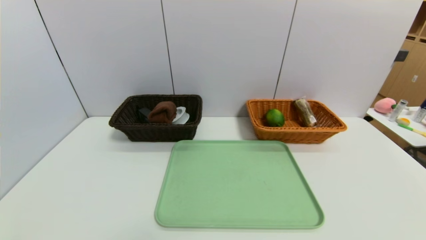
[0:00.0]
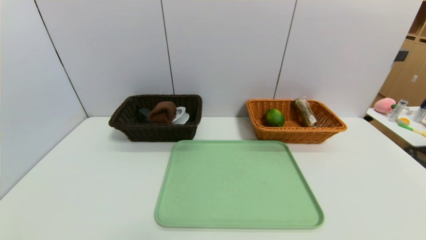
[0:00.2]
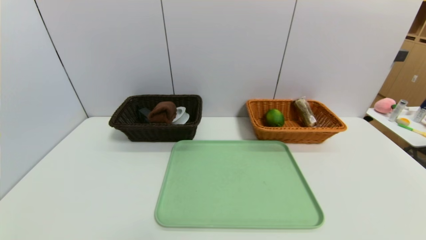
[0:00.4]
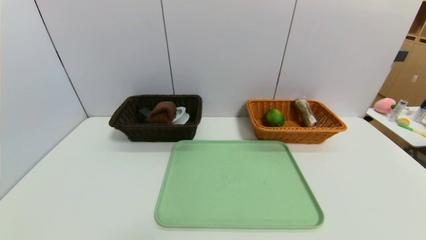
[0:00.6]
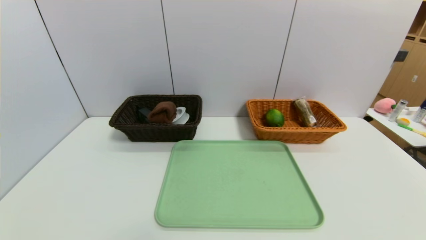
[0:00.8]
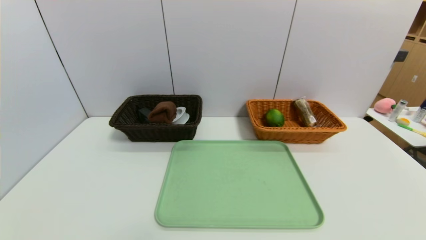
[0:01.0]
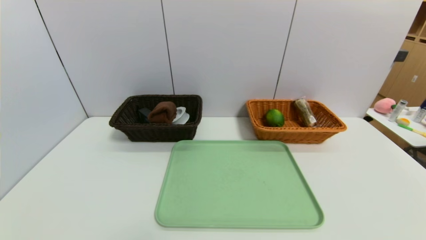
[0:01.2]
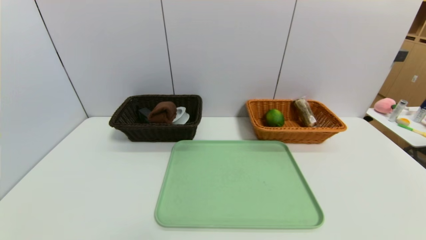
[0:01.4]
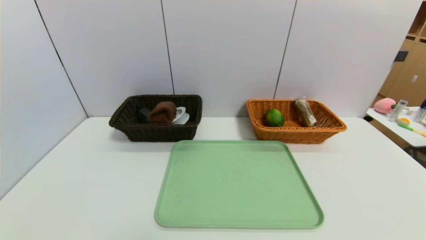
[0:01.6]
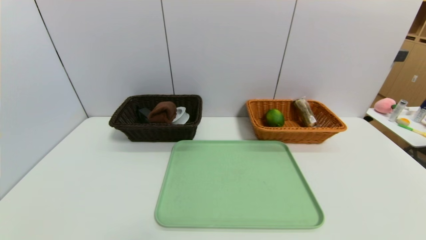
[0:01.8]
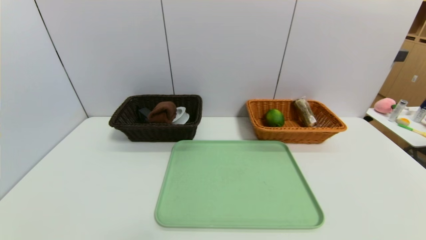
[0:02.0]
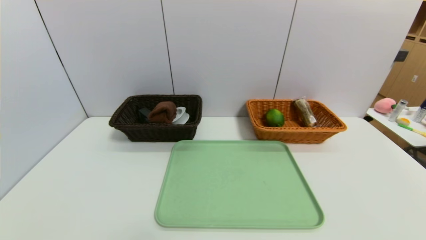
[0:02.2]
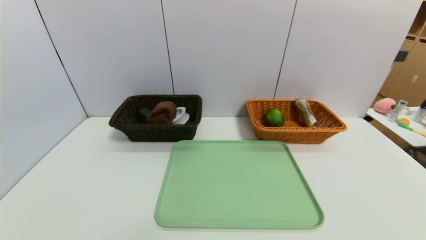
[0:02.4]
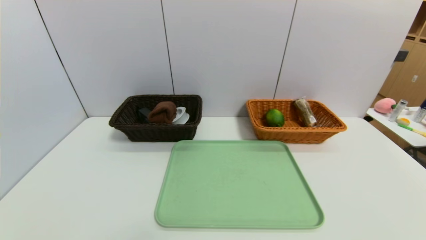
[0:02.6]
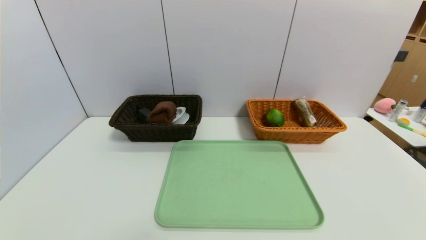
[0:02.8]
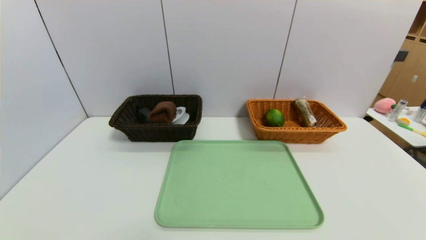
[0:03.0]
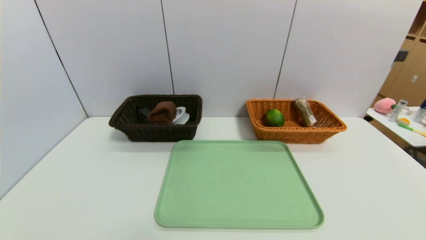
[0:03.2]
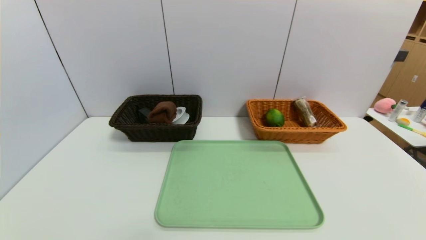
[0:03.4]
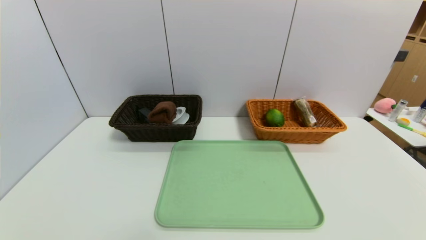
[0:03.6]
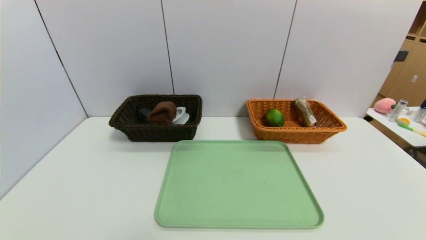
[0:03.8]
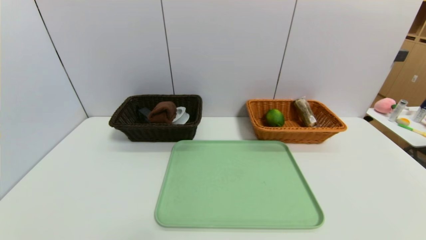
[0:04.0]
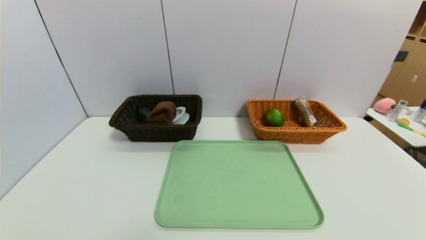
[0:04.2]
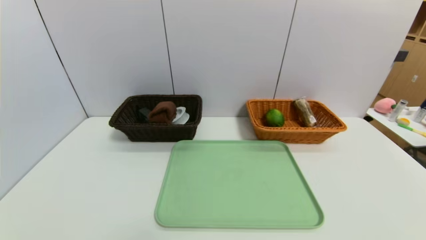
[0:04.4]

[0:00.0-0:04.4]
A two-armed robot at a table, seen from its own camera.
Task of the whole recording: place the food in the right basket with the right gripper, and place the non food items in the left basket with the left gripper.
0:03.0 to 0:04.4: Neither gripper changes place.

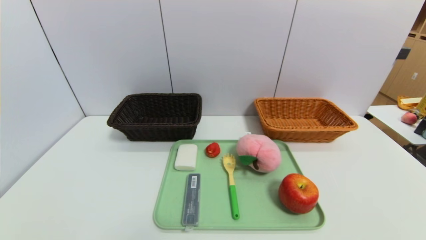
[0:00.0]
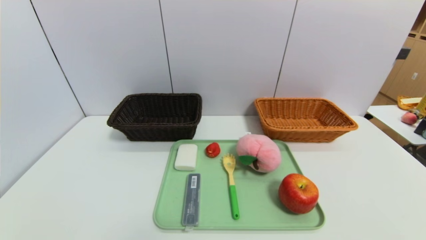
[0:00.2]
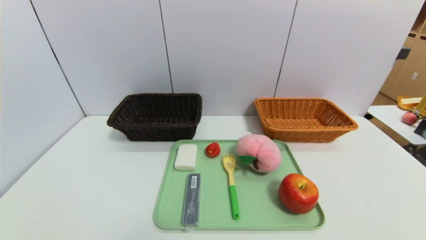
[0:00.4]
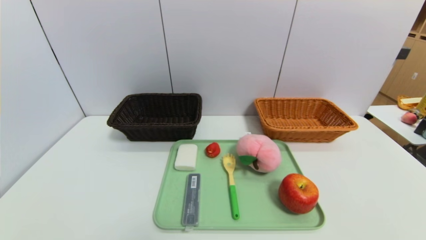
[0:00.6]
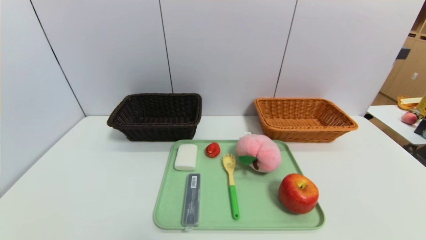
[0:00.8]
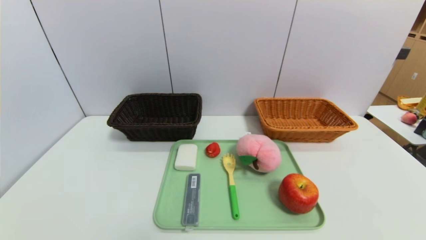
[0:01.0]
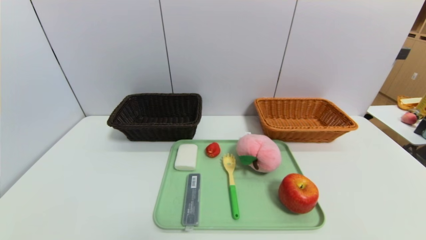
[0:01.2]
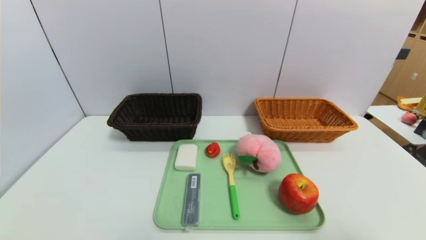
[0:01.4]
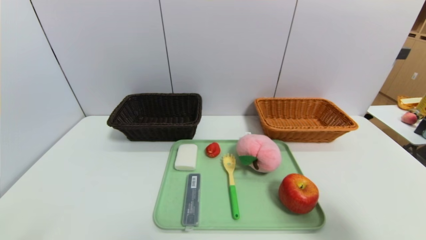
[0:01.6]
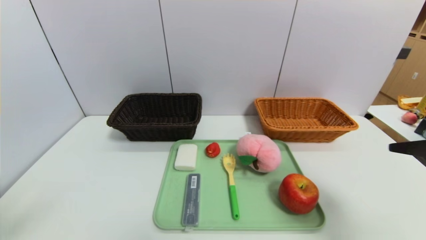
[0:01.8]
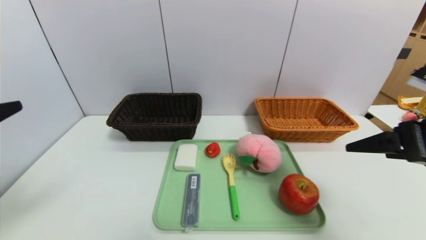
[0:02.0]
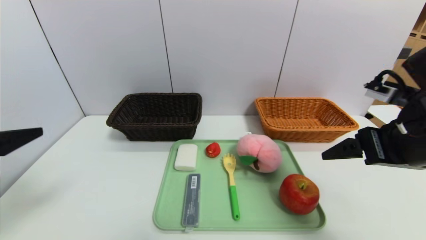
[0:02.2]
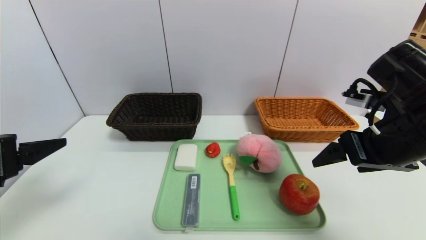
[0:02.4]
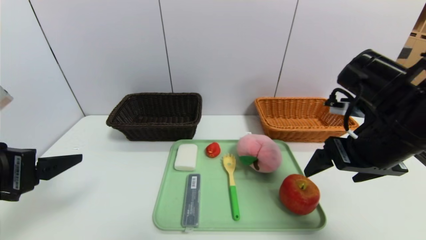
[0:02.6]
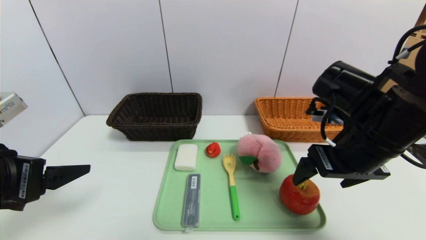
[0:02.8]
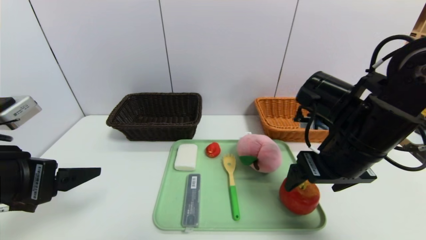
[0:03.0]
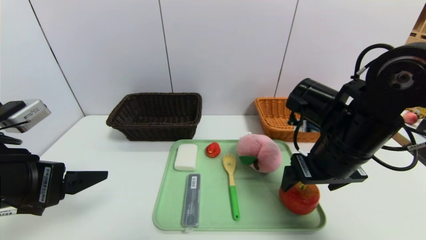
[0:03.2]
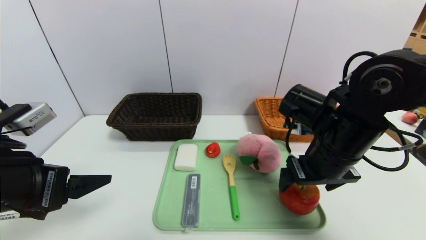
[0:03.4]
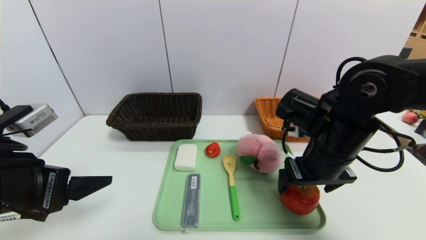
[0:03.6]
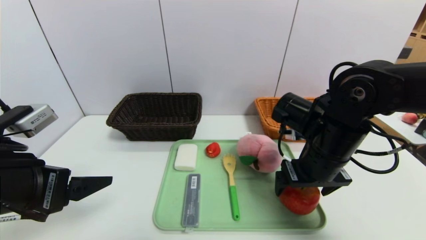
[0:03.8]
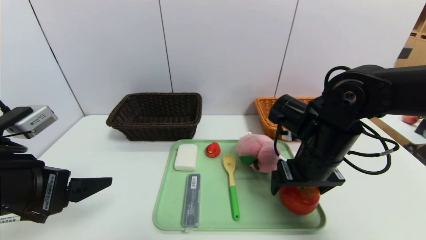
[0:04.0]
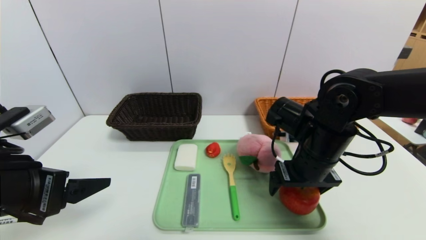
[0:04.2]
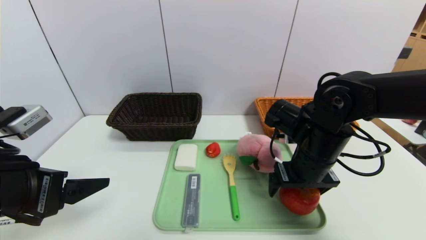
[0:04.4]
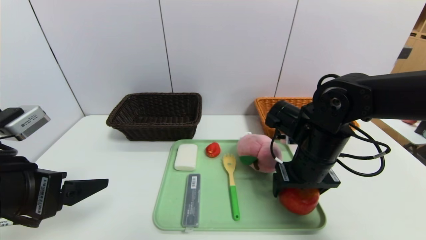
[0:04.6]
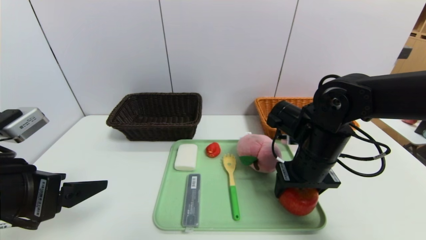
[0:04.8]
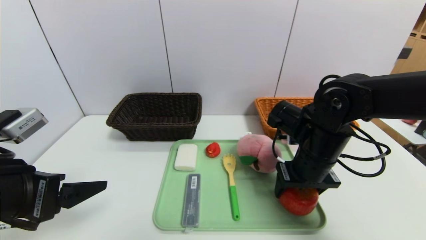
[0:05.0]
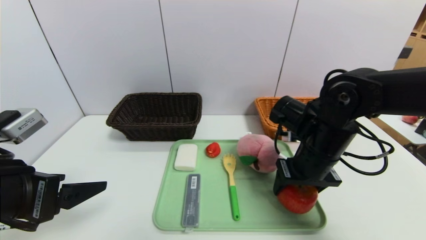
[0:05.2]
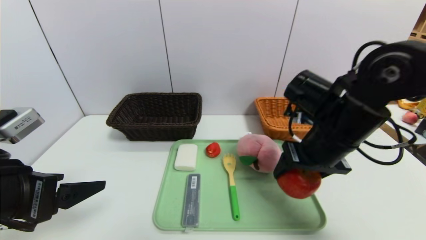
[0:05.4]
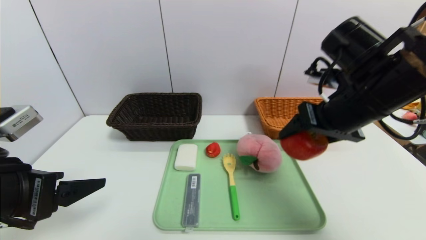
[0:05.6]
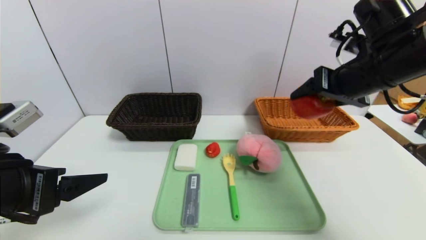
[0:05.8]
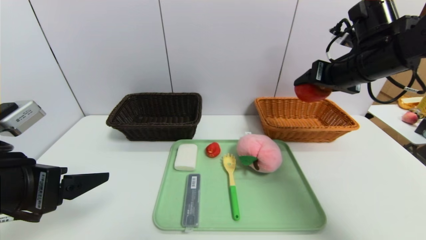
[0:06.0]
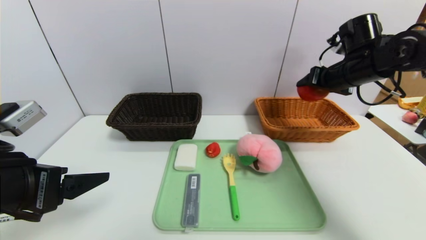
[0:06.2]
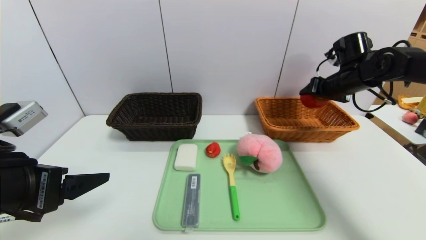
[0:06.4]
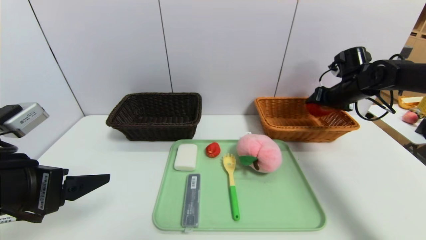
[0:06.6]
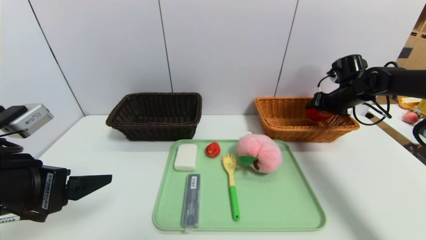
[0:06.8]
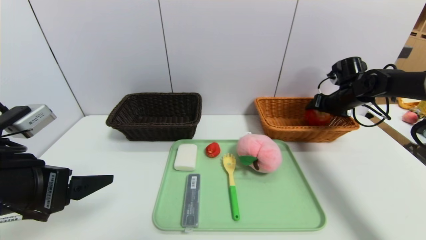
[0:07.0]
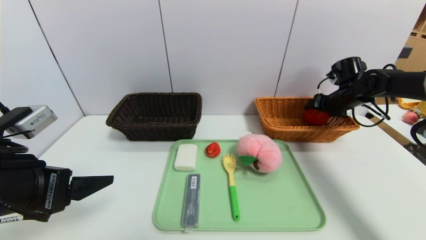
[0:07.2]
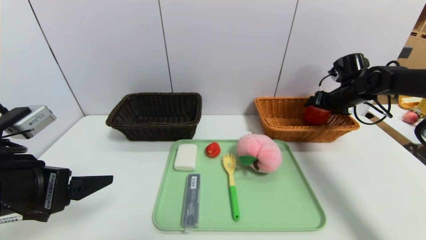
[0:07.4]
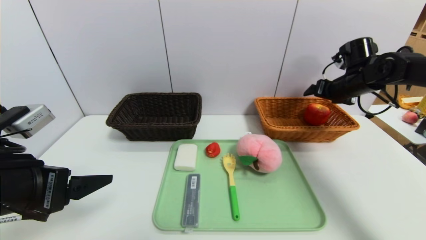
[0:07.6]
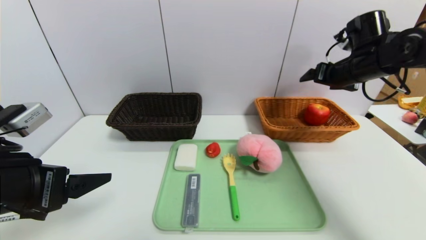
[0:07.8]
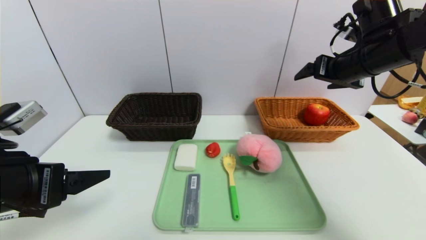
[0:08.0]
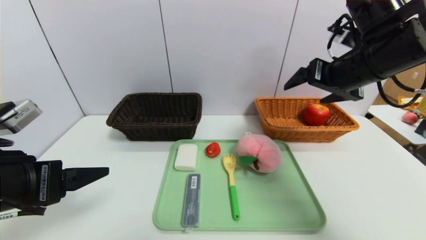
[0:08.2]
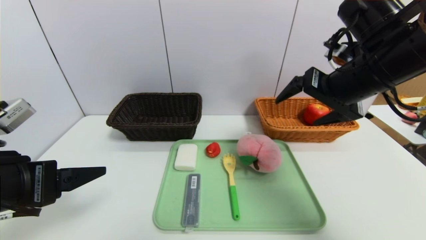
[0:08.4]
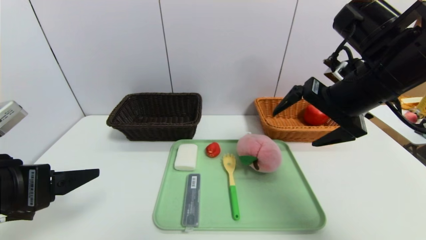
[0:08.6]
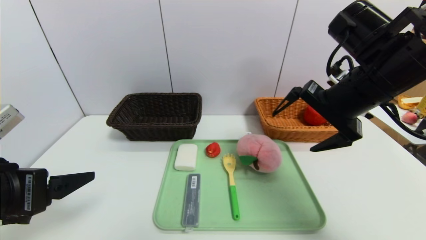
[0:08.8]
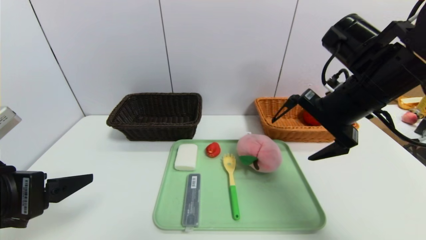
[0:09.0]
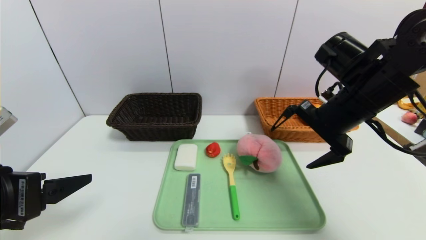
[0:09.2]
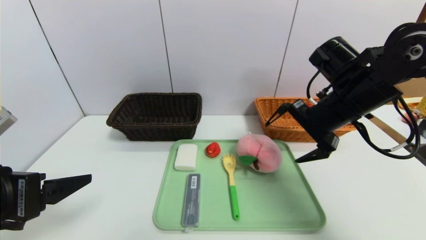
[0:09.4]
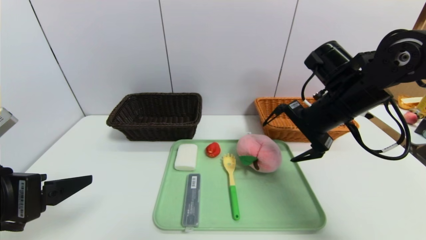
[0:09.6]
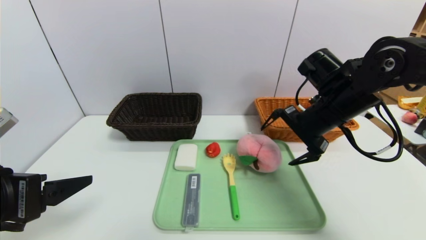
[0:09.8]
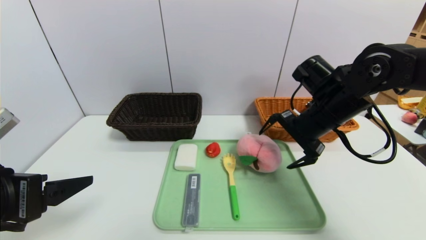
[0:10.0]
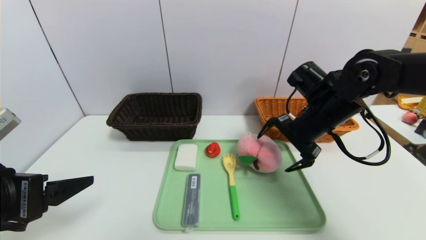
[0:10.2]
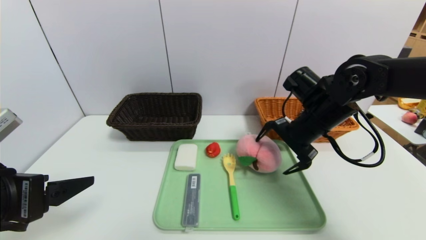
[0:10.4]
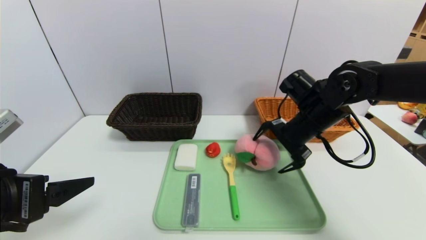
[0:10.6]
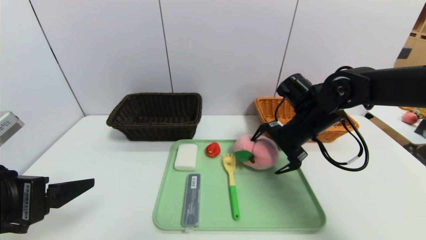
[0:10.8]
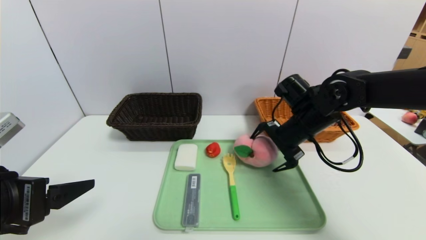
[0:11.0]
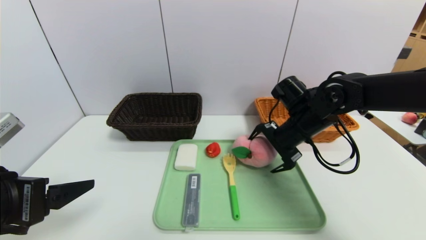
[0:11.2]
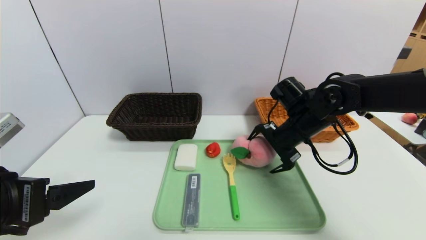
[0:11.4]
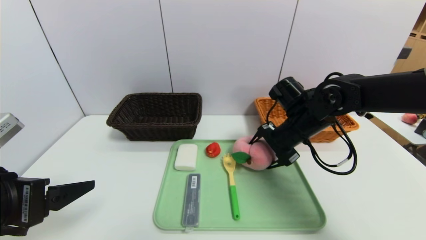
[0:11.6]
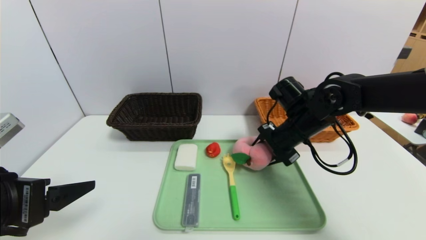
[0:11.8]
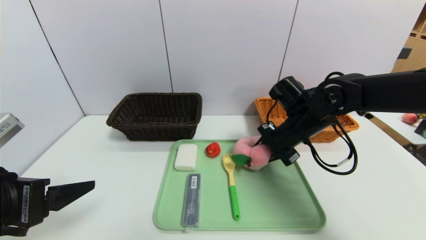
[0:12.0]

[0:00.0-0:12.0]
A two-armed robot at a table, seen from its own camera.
Task of the whole recording: place the food in the right basket with the right gripper, and place the non food items in the left basket with the left gripper.
Step, 0:00.0 to 0:08.0: Grasp the apple and put it in the right basket.
0:00.0 to 0:01.6: The right gripper travels upward and forward by about 25 cm.
0:01.6 to 0:03.0: The left gripper moves forward, some 15 cm. The right gripper is displaced forward and to the left by some 20 cm.
0:03.0 to 0:04.4: The right gripper travels downward by some 5 cm.
0:04.4 to 0:06.0: The right gripper heads upward, to the right and forward, covering about 20 cm.
0:06.0 to 0:07.6: The right gripper heads forward, to the right and downward, covering approximately 15 cm.
0:07.6 to 0:09.0: The right gripper shifts approximately 20 cm backward and to the left.
0:09.0 to 0:10.4: The right gripper shifts some 10 cm downward and forward.
0:10.4 to 0:12.0: The right gripper closes its fingers.
